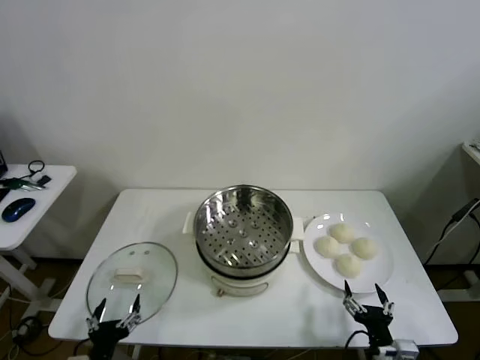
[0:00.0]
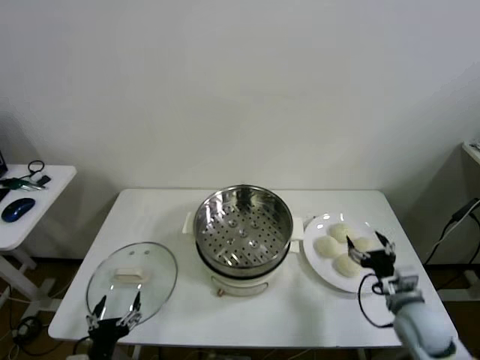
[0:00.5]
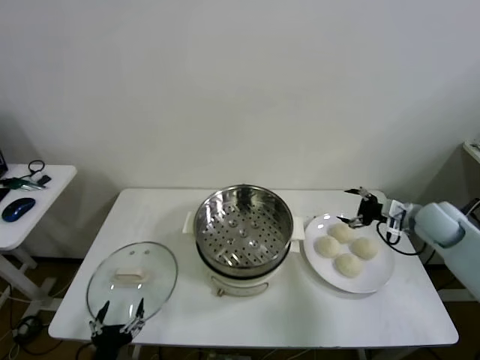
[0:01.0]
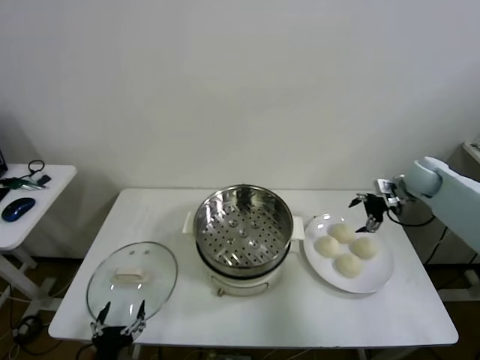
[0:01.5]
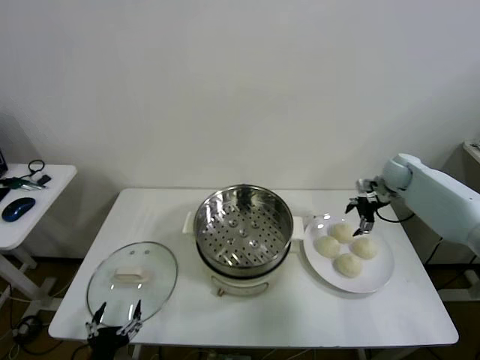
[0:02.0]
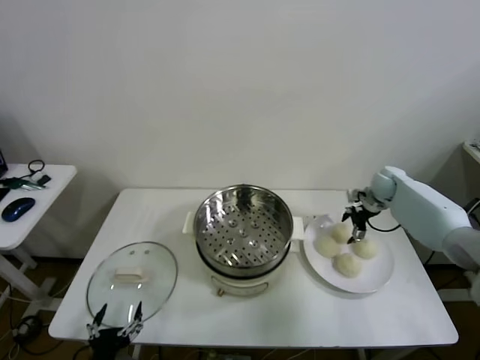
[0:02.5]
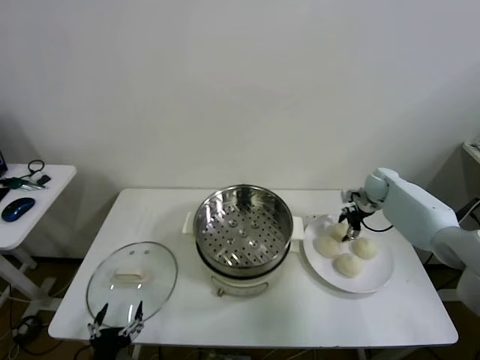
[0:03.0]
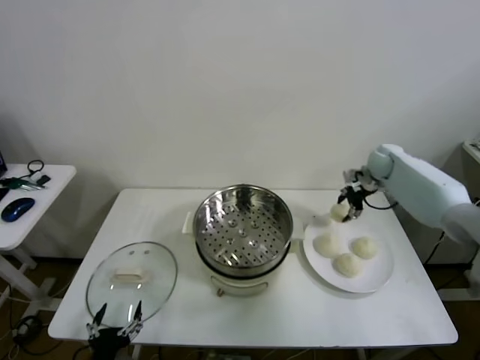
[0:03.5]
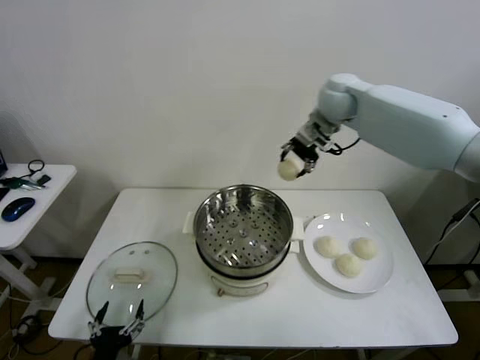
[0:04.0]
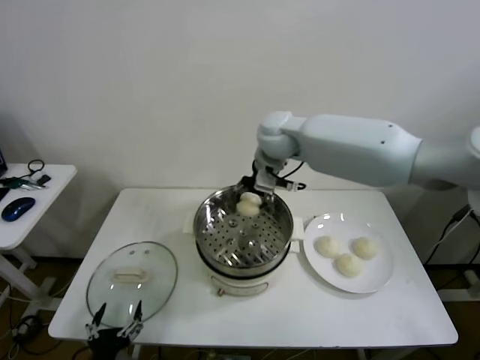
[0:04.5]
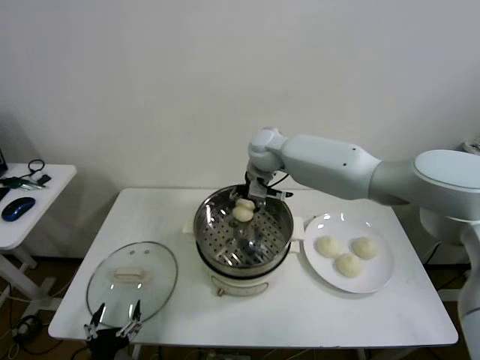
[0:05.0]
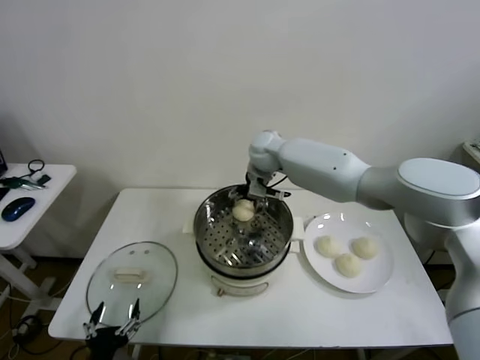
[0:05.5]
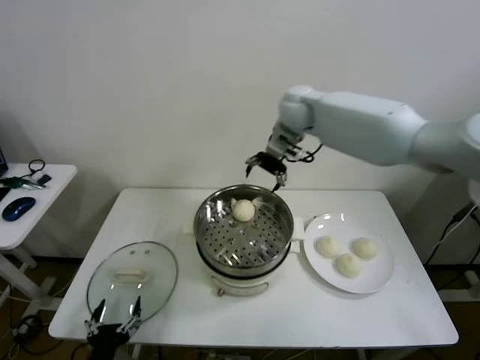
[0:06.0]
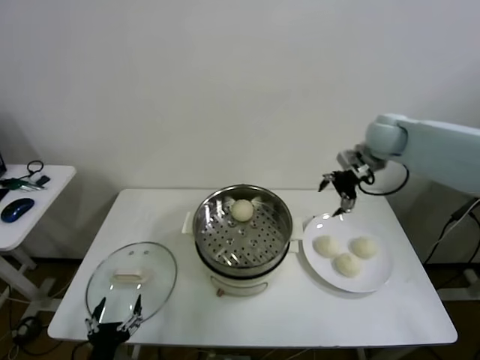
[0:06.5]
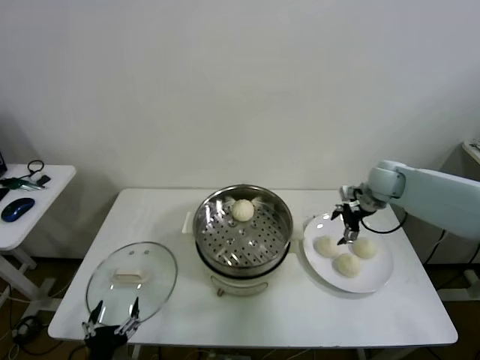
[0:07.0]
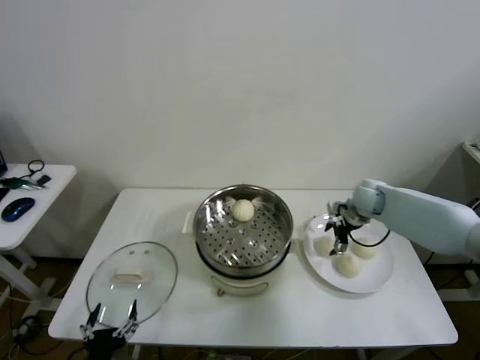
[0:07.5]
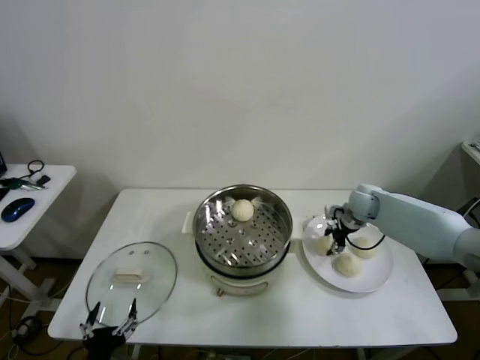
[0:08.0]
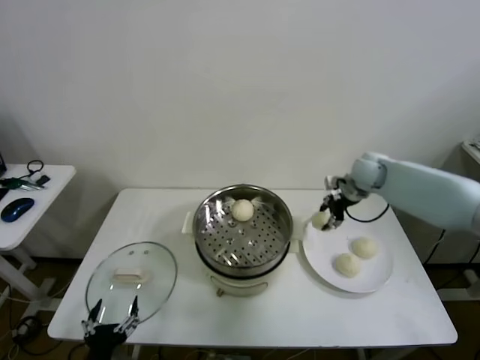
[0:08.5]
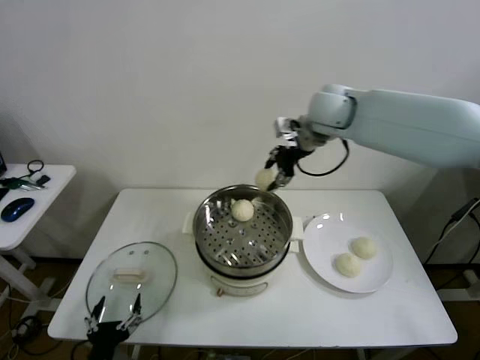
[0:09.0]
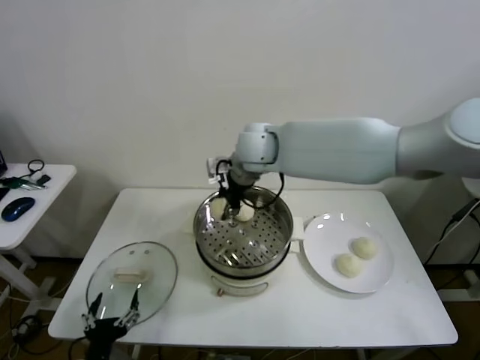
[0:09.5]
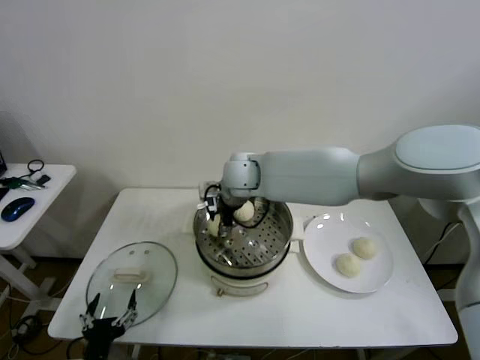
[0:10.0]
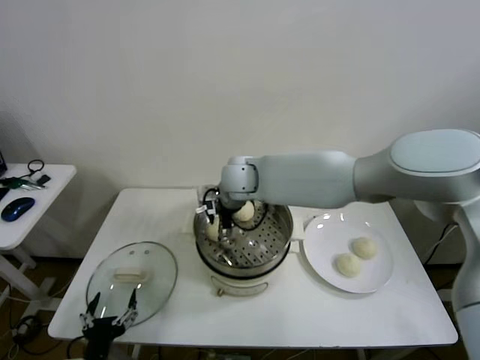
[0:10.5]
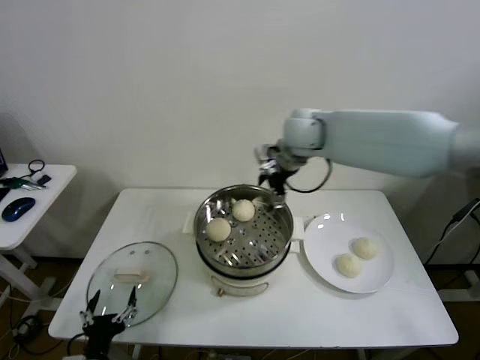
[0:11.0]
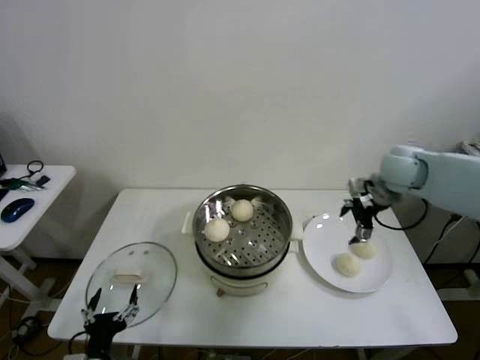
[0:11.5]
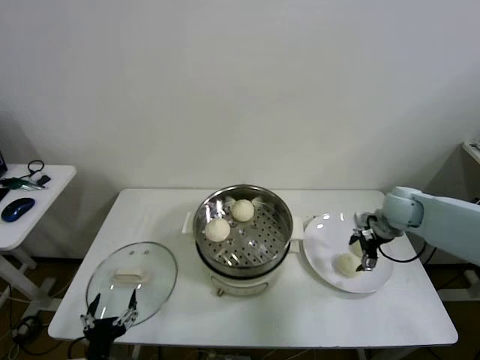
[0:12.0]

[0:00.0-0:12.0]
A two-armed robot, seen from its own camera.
Step, 0:00.0 to 0:03.0: Grasp the baozi in the plate with right gripper.
Step, 0:03.5 to 0:05.0: Place the baozi on the steamer with right gripper.
Step, 0:05.5 to 0:08.0: Grasp the baozi in the plate with right gripper.
Step, 0:08.5 to 0:10.0: Place the baozi on the steamer with right gripper.
0:02.0 to 0:04.0: The right gripper moves to the left and upward, about 35 cm, and closes its fingers.
0:04.0 to 0:06.0: The right gripper travels downward and back again, roughly 15 cm each way, and opens its fingers.
0:06.0 to 0:08.0: The right gripper shifts approximately 30 cm downward and to the right, and closes up.
0:08.0 to 0:10.0: The right gripper heads to the left and upward, covering about 35 cm.
0:10.0 to 0:12.0: The right gripper goes approximately 40 cm to the right, and opens up.

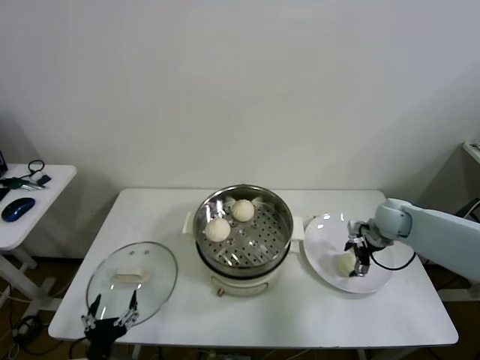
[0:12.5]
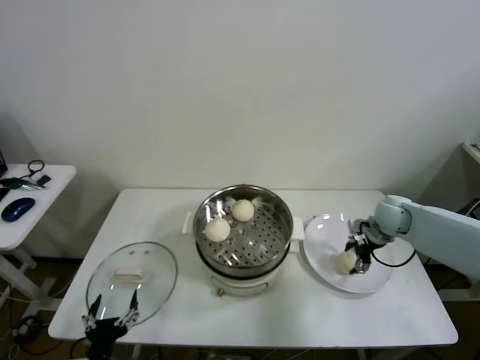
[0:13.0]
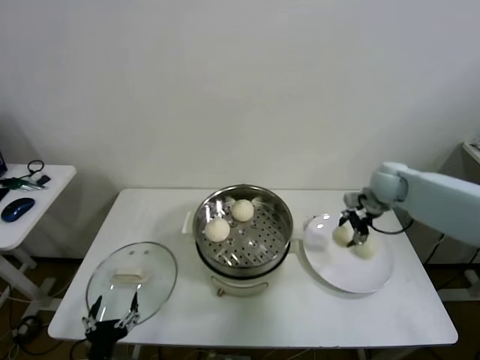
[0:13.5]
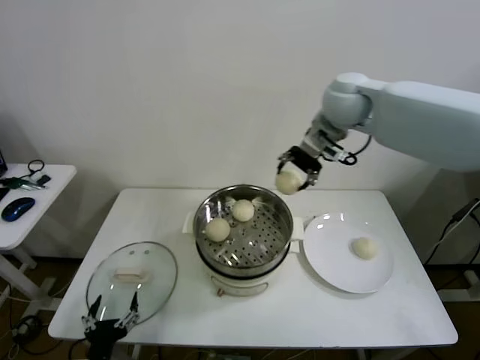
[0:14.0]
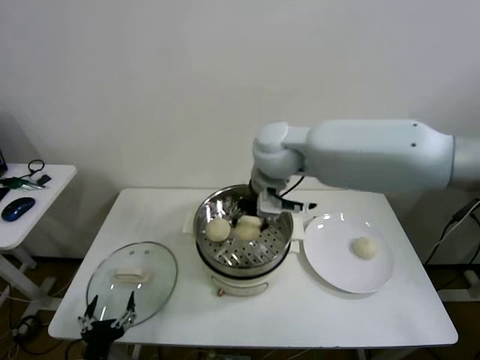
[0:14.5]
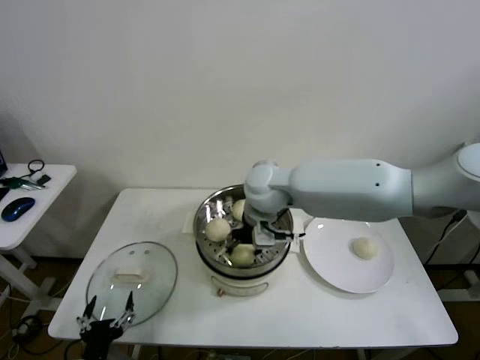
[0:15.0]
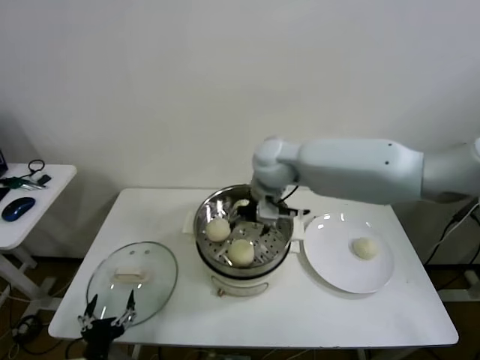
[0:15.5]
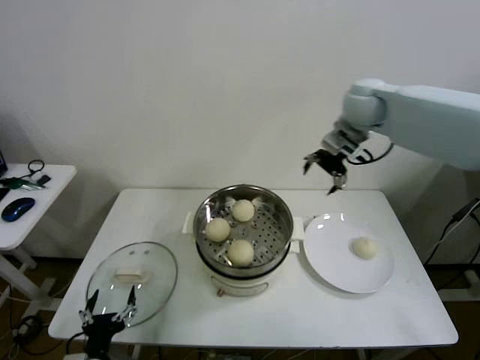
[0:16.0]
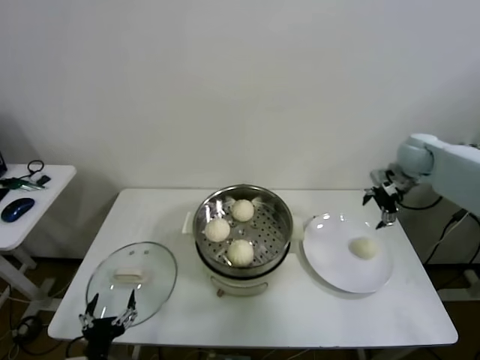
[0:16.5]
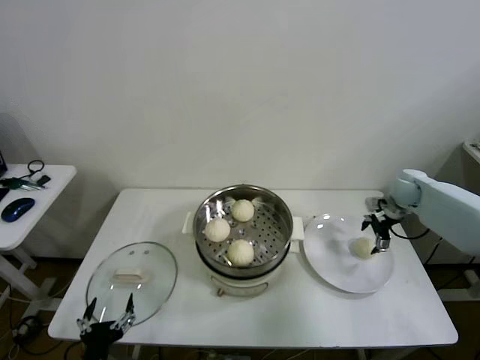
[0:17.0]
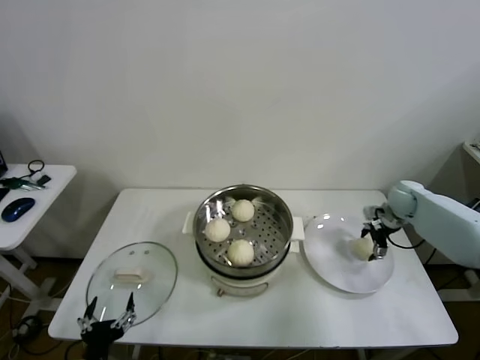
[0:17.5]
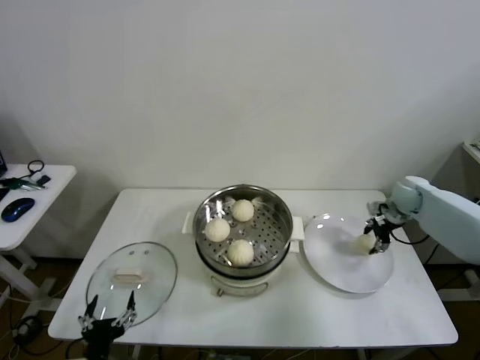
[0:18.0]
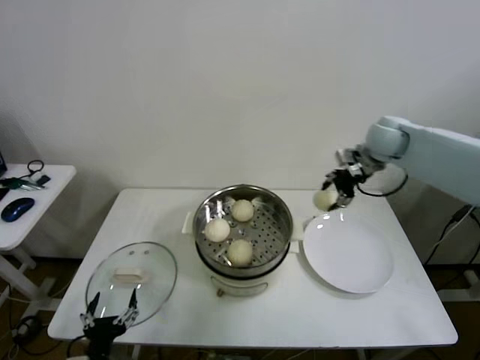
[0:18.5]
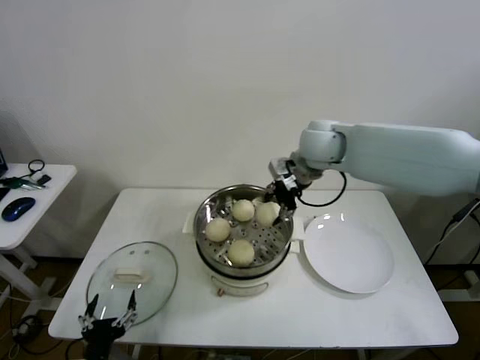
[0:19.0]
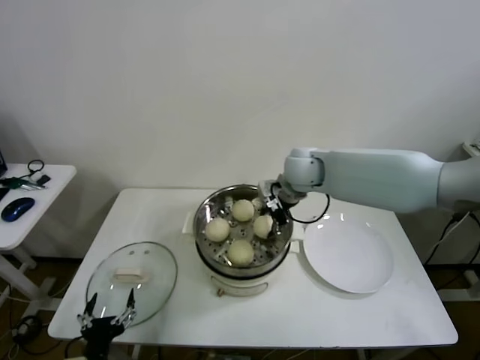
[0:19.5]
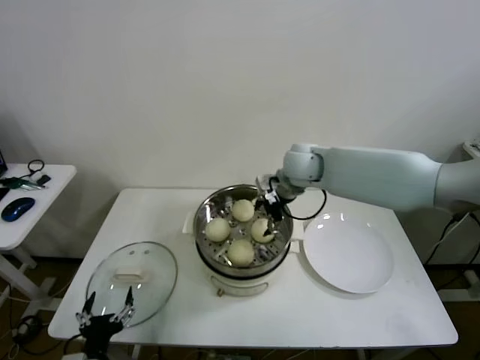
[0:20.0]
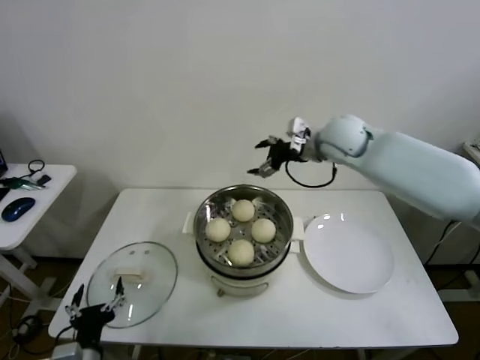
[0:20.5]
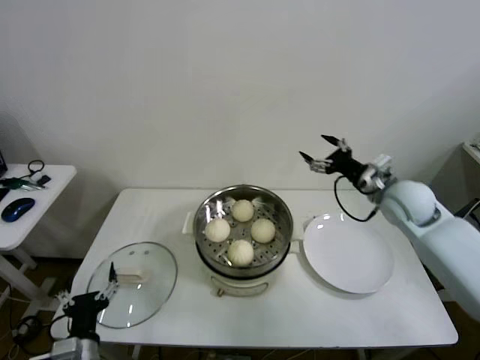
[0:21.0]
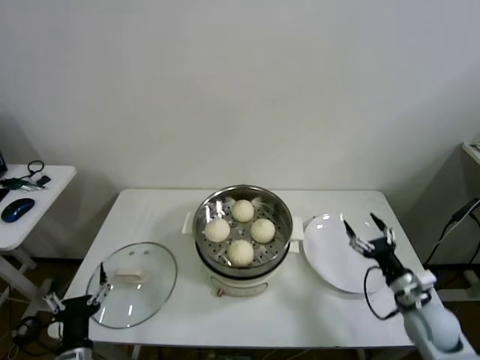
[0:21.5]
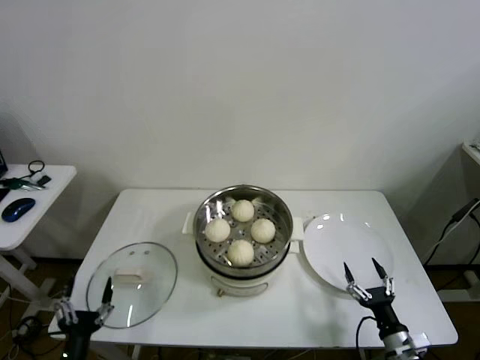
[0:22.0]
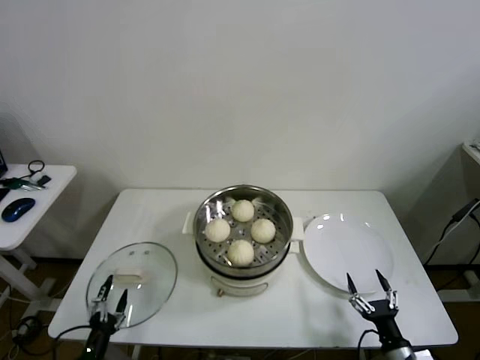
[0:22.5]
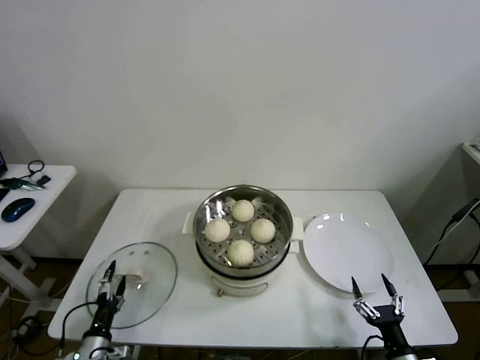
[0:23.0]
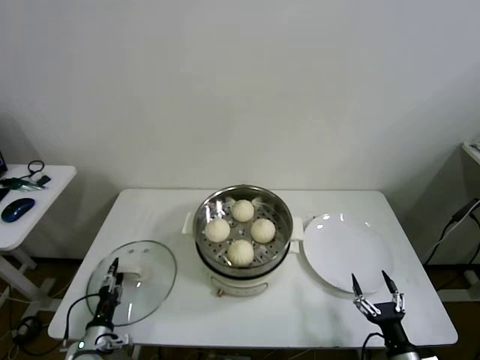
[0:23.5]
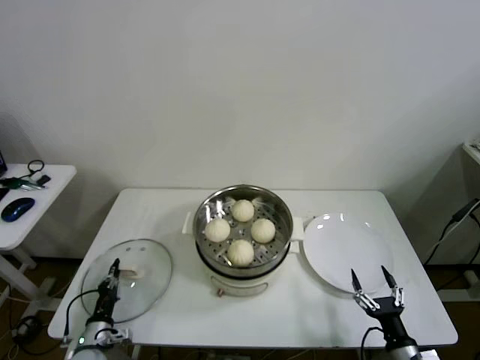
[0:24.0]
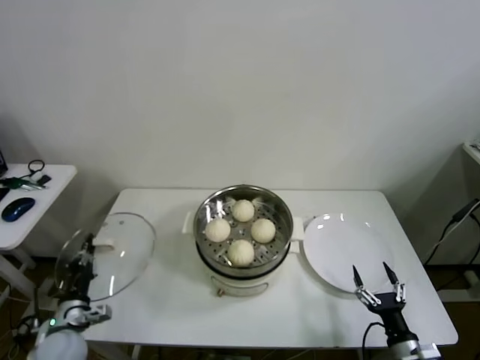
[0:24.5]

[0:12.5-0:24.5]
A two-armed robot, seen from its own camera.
Step, 0:13.0 to 0:15.0: Place the baozi on the steamer with right gripper.
Step, 0:15.5 to 0:17.5: Grasp the baozi in the plate with right gripper.
Step, 0:18.0 to 0:19.5: Place the baozi on the steamer with right gripper.
Step, 0:20.0 to 0:23.5: Grasp the pot lid with left gripper.
0:12.5 to 0:14.5: The right gripper is displaced to the left and upward by about 40 cm, and closes.
0:14.5 to 0:16.5: The right gripper is displaced to the right by some 35 cm, and opens up.
0:16.5 to 0:18.5: The right gripper moves to the left, about 10 cm, travels downward and back again, roughly 15 cm each way, and closes up.
0:18.5 to 0:20.5: The right gripper goes approximately 10 cm to the left, and opens up.
0:20.5 to 0:22.5: The right gripper shifts some 60 cm downward and backward, while the left gripper goes roughly 10 cm downward and to the left.
0:22.5 to 0:24.5: The left gripper goes about 10 cm forward, and closes.

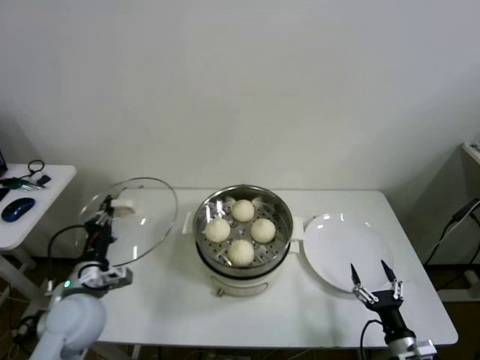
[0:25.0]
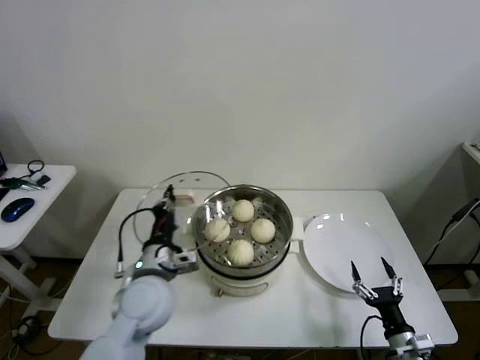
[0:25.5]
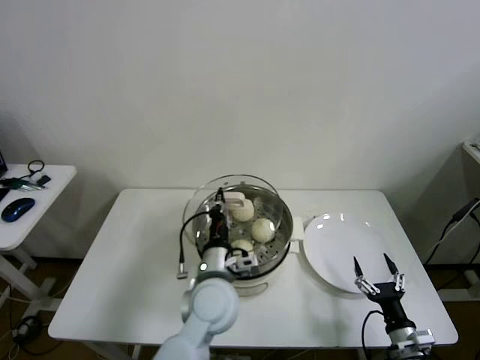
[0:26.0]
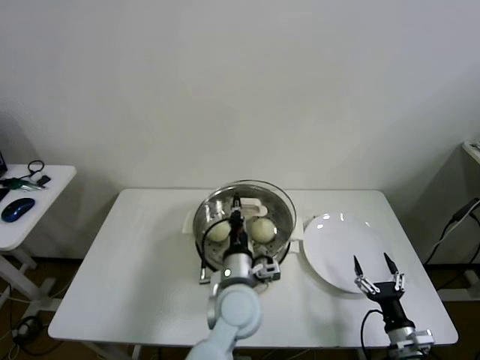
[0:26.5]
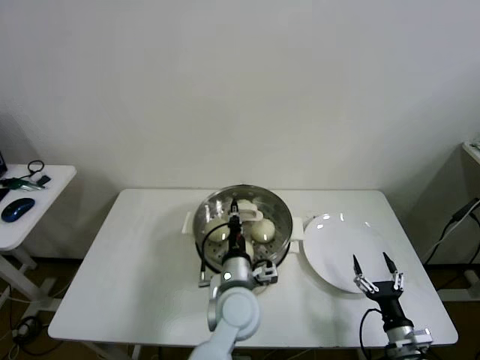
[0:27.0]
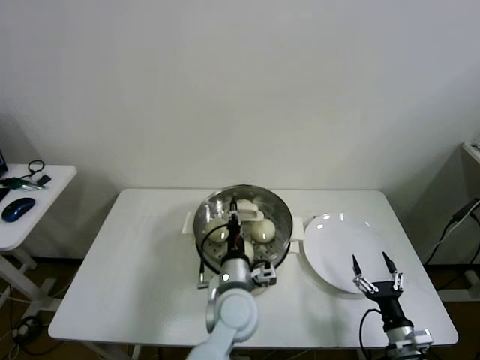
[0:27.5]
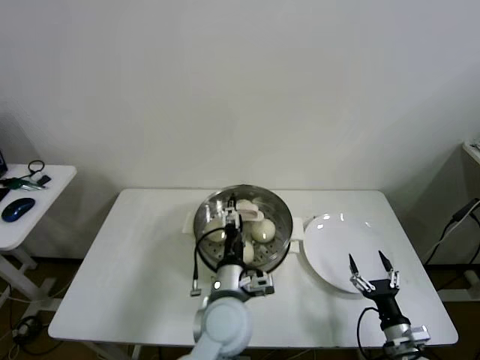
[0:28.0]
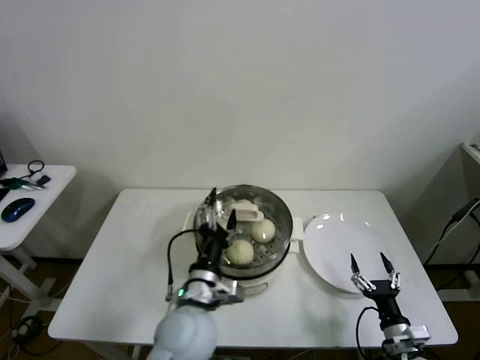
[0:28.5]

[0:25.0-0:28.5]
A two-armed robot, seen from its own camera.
Step, 0:25.0 to 0:27.5: Place the pot lid on the steamer with left gripper.
0:25.0 to 0:27.0: The left gripper goes approximately 30 cm to the right.
0:27.0 to 0:28.5: The left gripper is displaced to the left by some 5 cm, and opens.
